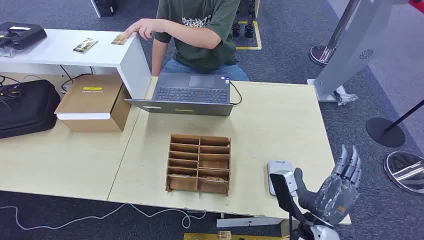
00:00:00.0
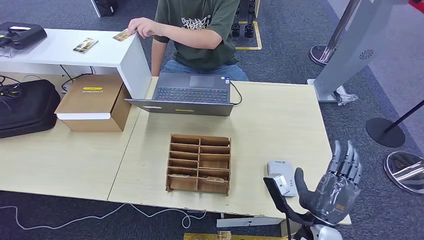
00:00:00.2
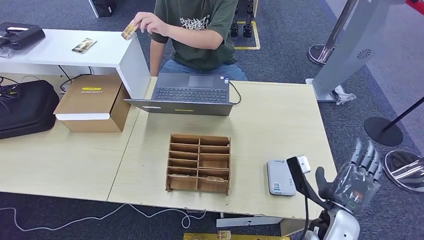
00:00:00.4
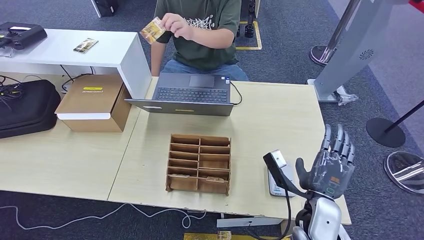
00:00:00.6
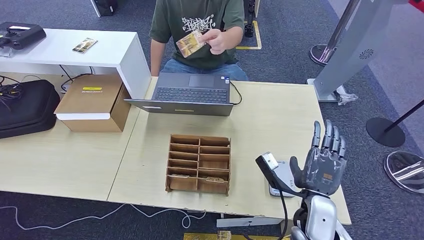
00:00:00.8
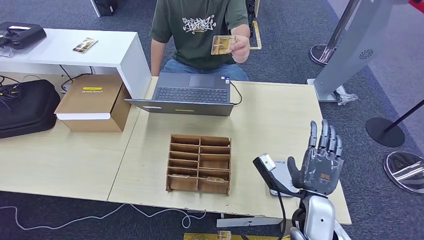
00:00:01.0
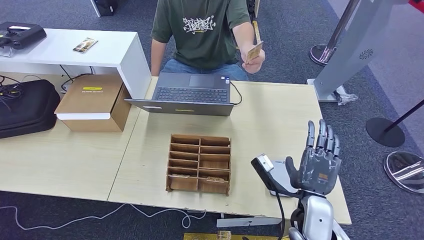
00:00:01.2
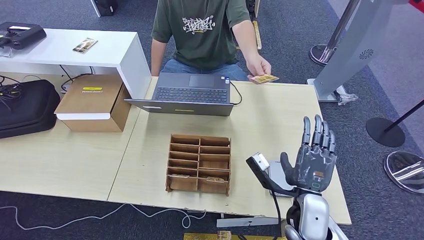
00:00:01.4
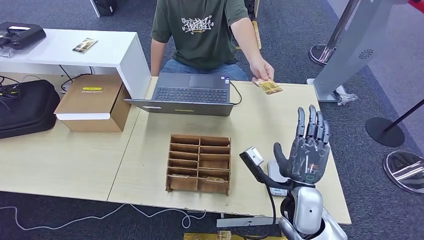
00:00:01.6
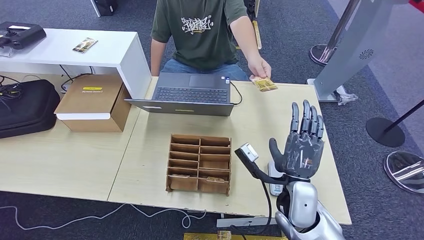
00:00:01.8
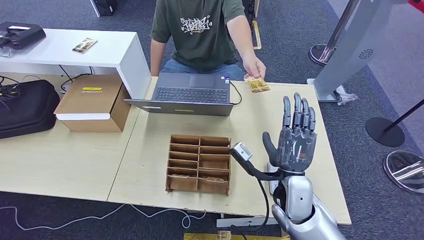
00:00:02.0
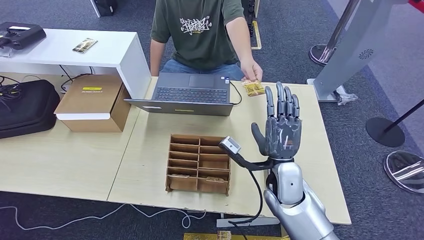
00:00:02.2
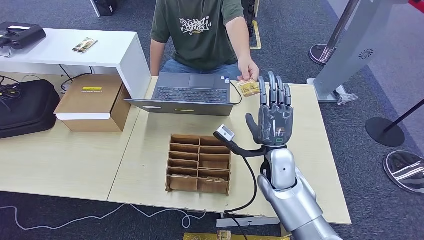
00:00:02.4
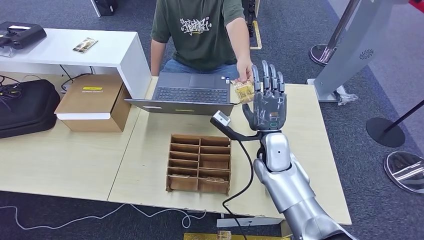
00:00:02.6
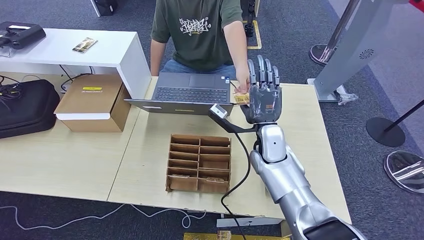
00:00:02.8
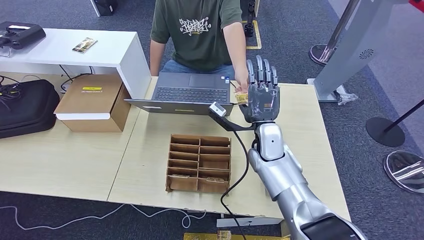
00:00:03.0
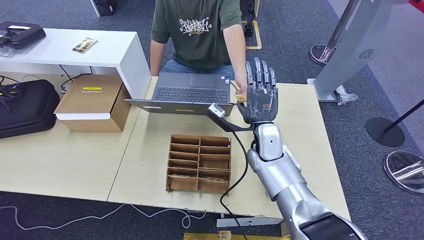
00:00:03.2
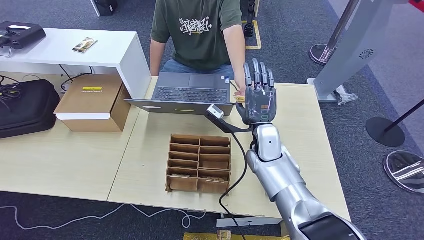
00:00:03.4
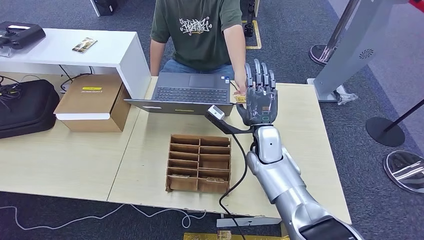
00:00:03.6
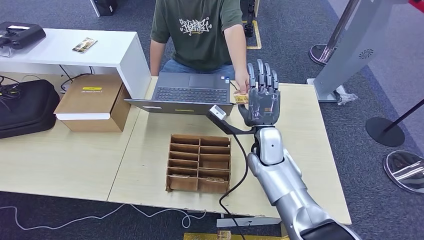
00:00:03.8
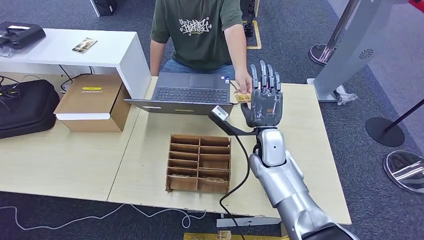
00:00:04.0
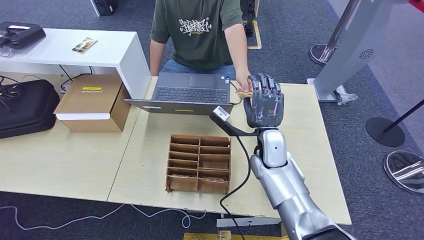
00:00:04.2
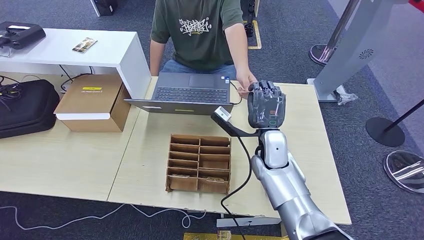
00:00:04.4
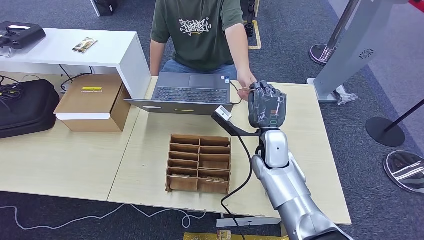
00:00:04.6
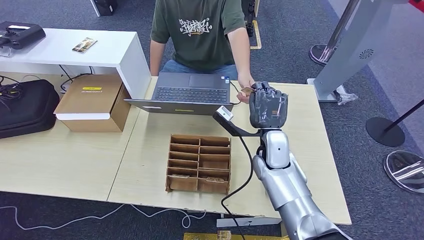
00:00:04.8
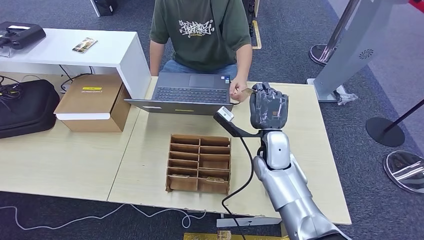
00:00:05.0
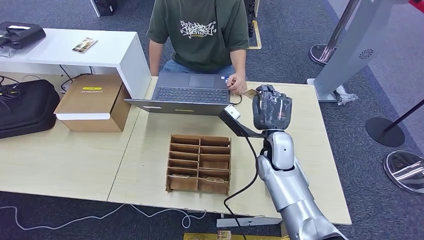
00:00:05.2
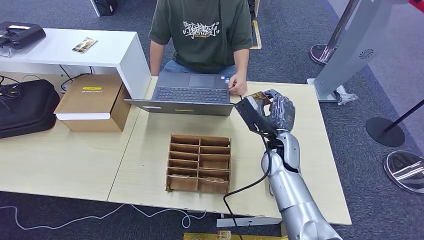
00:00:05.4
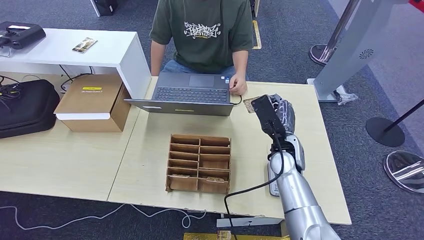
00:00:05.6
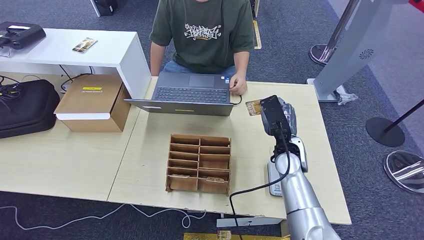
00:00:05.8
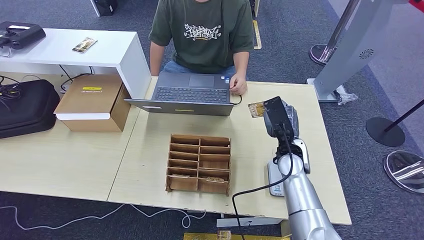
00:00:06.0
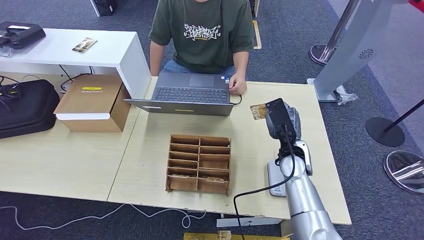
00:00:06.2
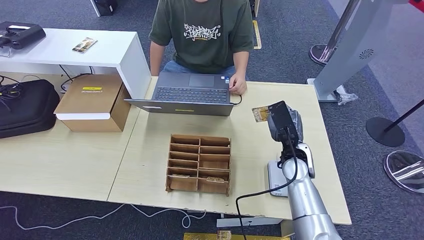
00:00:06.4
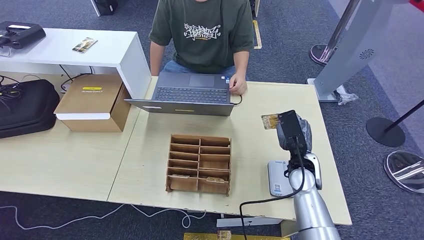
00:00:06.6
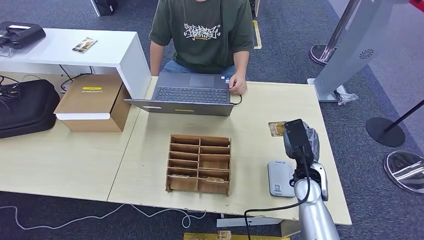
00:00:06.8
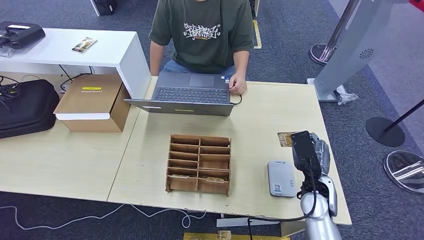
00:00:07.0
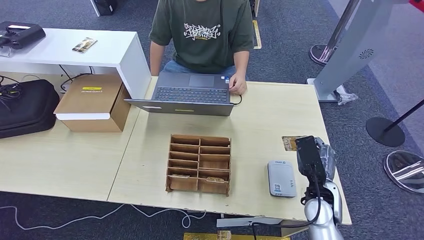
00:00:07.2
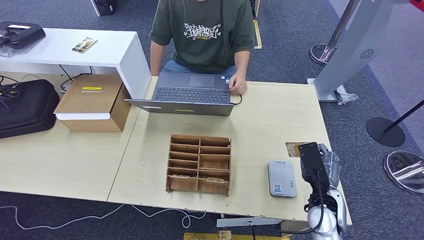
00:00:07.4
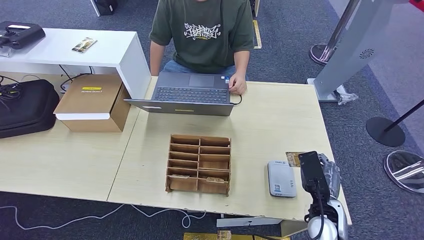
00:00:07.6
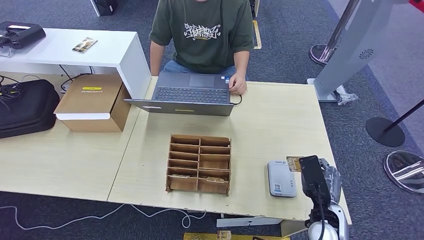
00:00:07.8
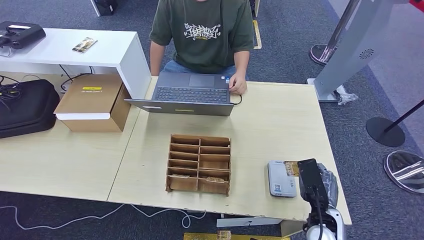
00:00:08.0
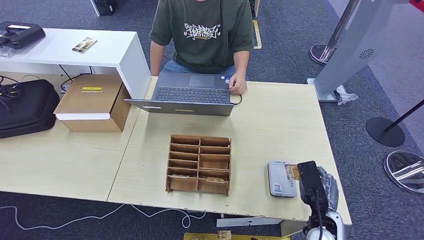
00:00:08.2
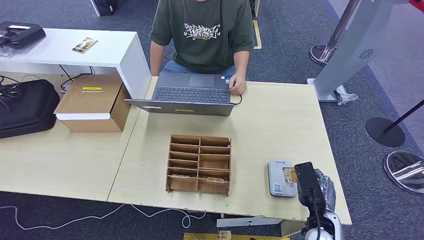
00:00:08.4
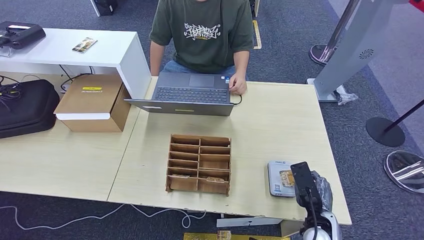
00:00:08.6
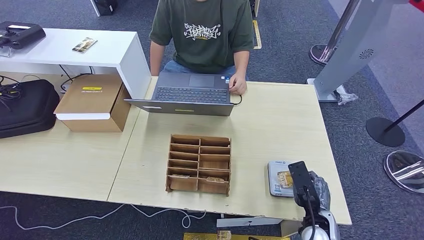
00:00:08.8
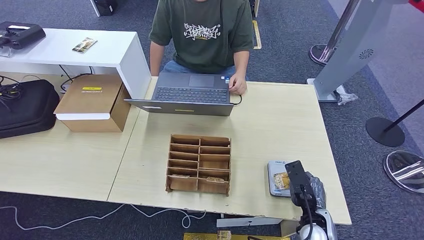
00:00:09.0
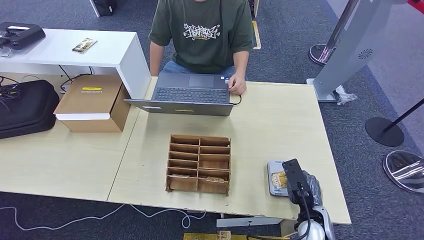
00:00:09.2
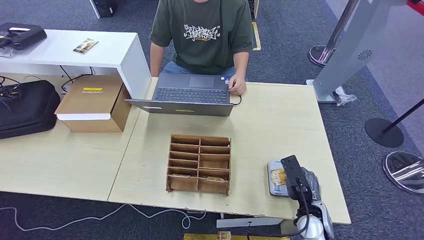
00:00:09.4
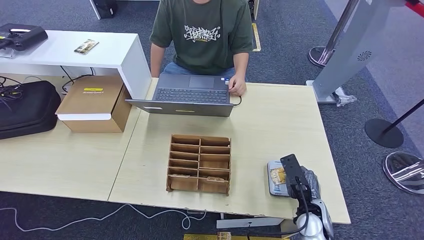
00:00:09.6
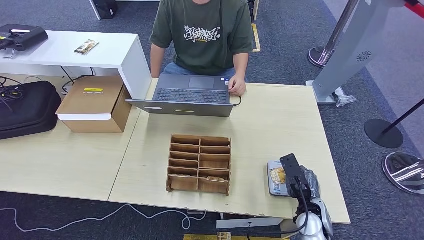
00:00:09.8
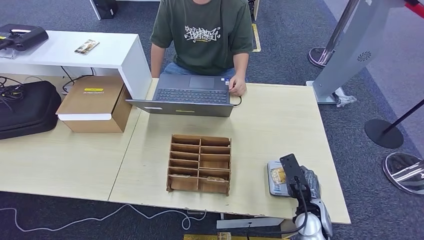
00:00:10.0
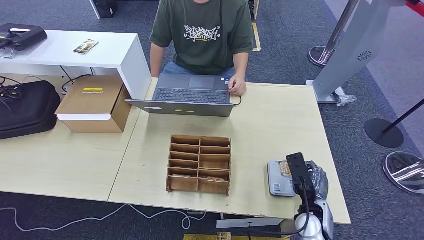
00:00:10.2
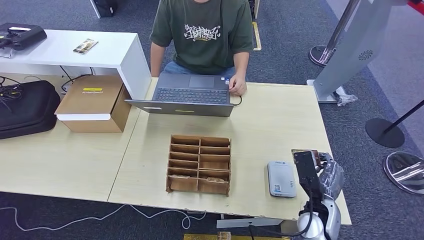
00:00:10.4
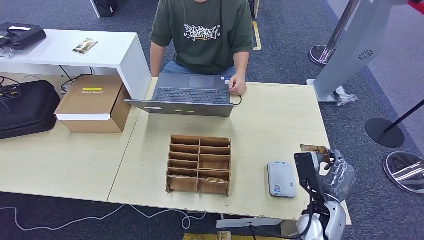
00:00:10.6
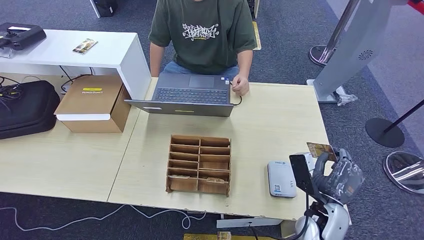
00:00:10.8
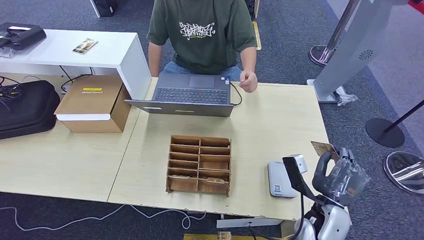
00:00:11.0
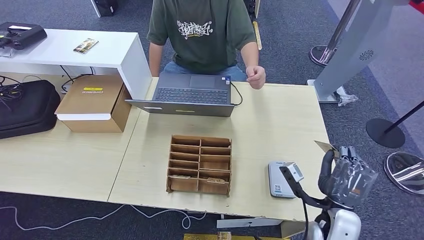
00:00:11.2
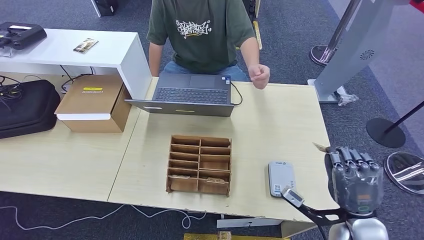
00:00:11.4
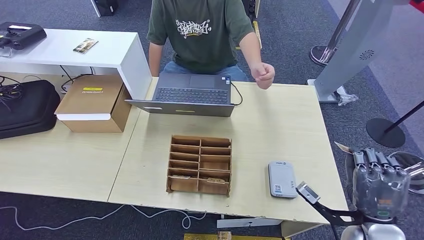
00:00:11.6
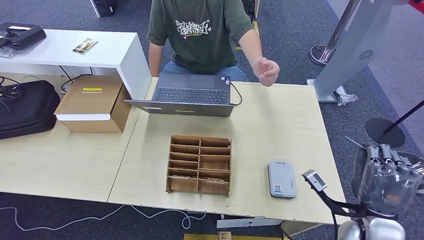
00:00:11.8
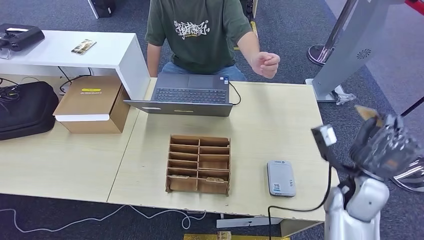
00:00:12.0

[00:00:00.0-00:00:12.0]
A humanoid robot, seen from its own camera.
Step, 00:00:00.0 to 00:00:05.0: Take the ID card from the person's hand.
Step, 00:00:05.2 to 00:00:09.0: Place the ID card on the card reader.
00:00:01.6 to 00:00:03.0: The right hand is displaced forward by about 15 cm.
00:00:03.0 to 00:00:04.4: The hands make only small movements.
00:00:04.4 to 00:00:06.0: The right hand heads to the right, covering approximately 5 cm.
00:00:06.0 to 00:00:07.6: The right hand heads backward, covering roughly 15 cm.
00:00:07.6 to 00:00:09.0: The hands stay close to where they were, moving slightly.
00:00:10.4 to 00:00:12.0: The right hand shifts roughly 10 cm upward and to the right.

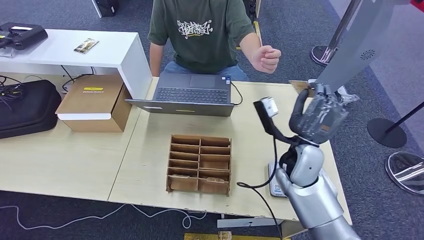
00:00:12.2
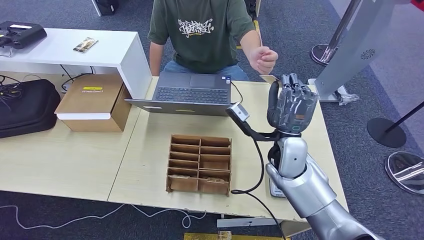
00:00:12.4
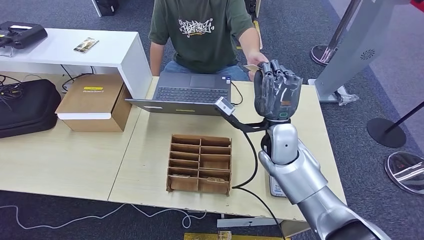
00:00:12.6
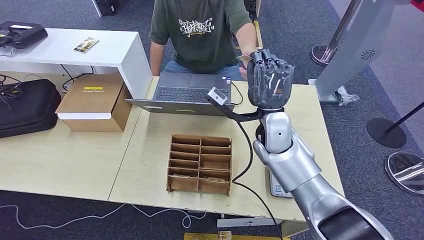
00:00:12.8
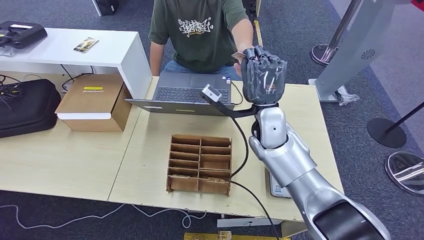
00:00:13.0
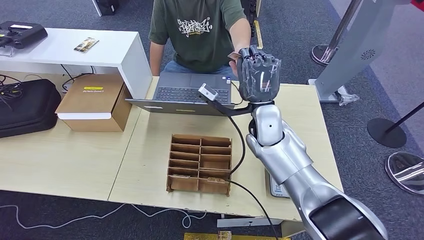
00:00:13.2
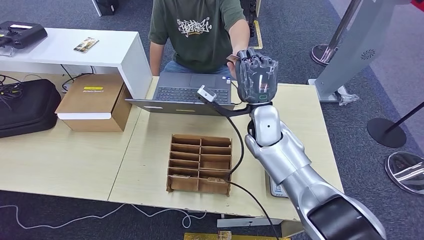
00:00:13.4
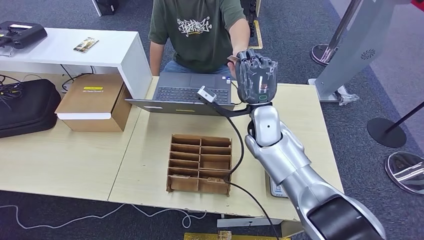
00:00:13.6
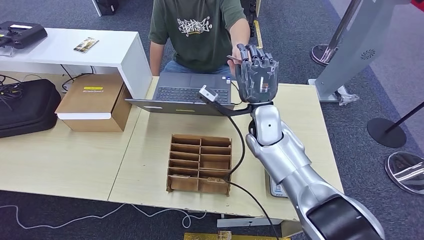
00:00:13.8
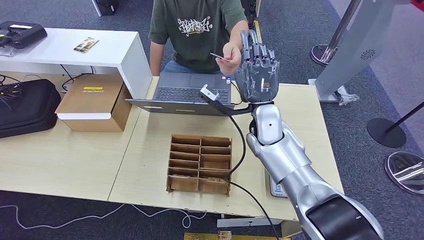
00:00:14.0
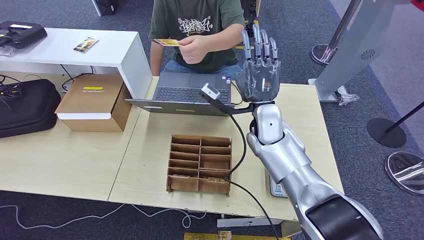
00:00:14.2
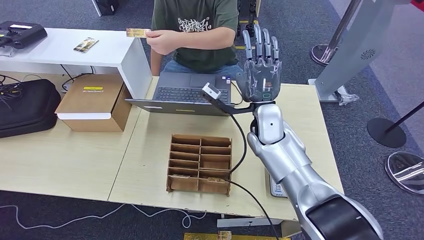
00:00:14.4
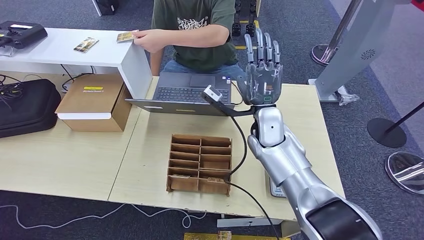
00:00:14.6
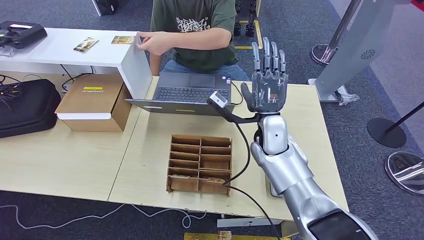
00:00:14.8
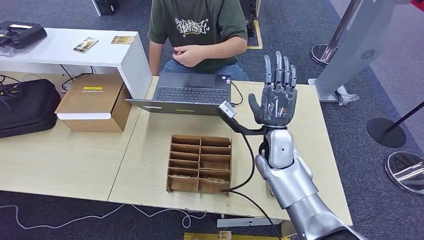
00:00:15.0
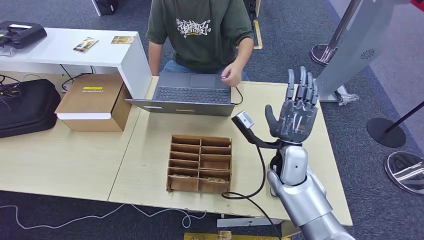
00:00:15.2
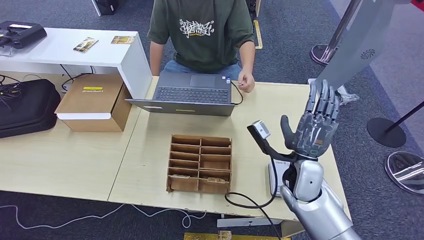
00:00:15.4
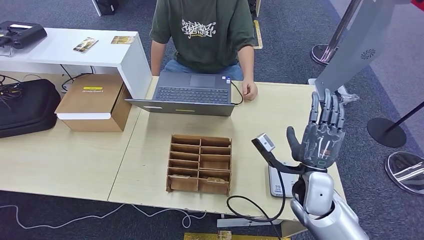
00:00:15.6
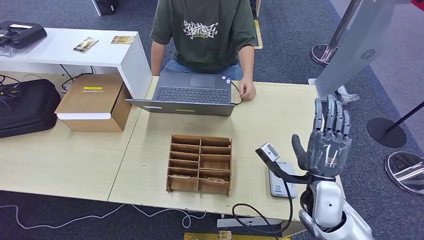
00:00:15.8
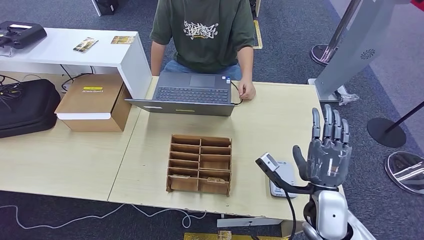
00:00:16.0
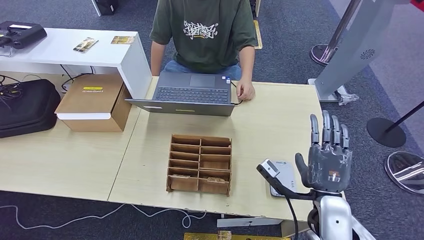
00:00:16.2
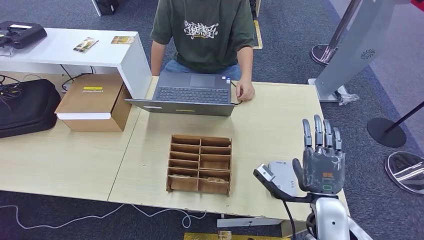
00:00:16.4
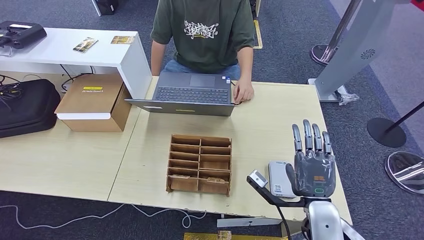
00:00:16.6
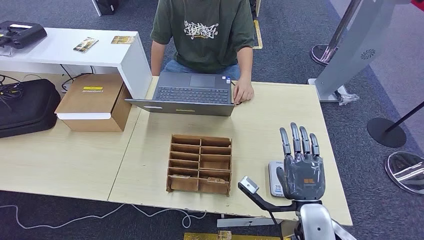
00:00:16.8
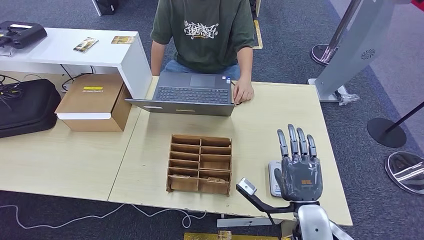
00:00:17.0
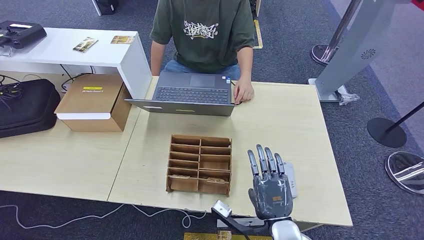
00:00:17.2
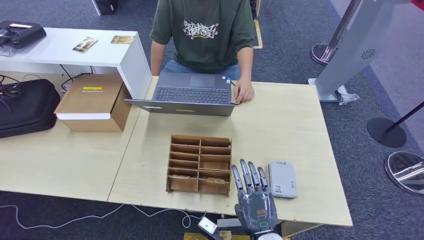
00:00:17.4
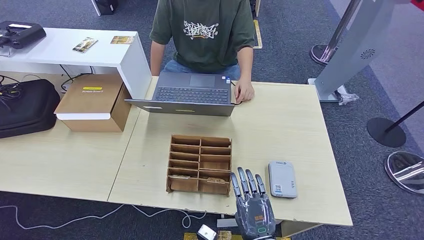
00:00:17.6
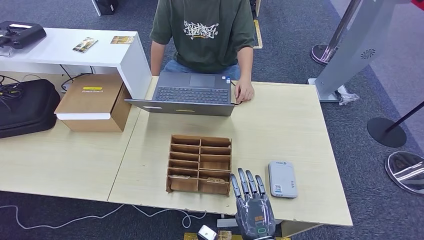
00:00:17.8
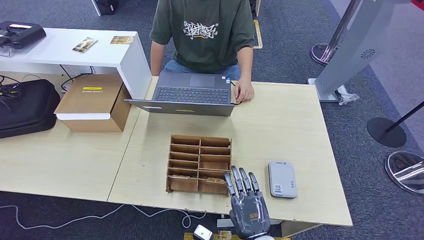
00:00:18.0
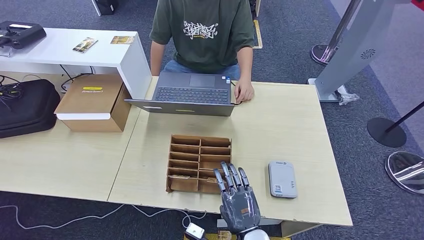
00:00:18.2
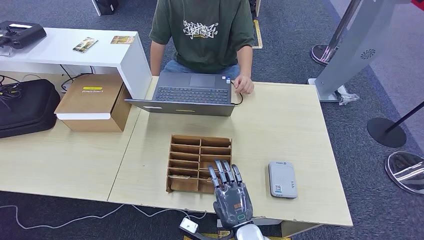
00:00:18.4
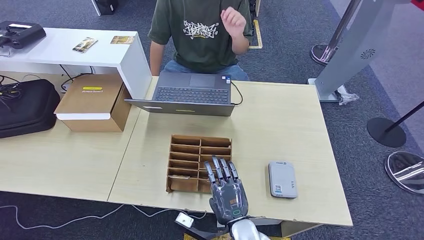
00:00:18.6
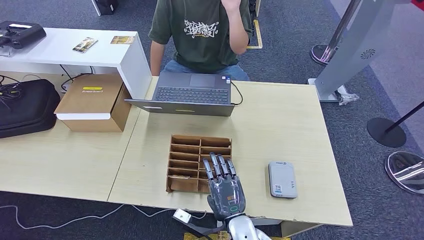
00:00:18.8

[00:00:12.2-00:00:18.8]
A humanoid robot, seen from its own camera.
Step, 00:00:12.2 to 00:00:14.4: Hand the ID card to the person.
00:00:12.2 to 00:00:13.8: The right hand moves forward and to the left, roughly 10 cm.
00:00:13.8 to 00:00:15.4: The right hand moves backward, to the right and downward, about 15 cm.
00:00:15.4 to 00:00:17.2: The right hand moves backward, roughly 15 cm.
00:00:17.2 to 00:00:18.8: The right hand is displaced to the left and downward by approximately 10 cm.
